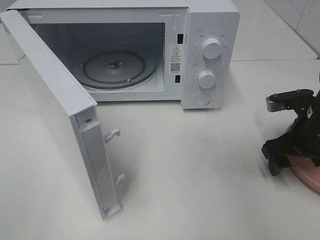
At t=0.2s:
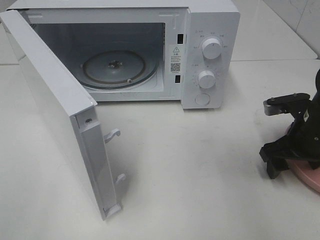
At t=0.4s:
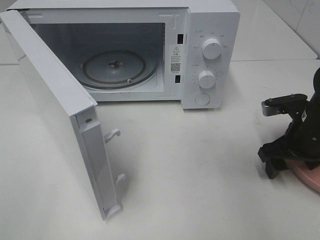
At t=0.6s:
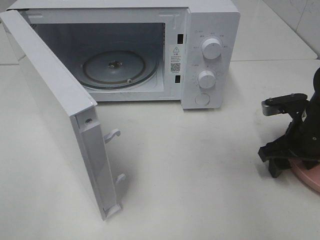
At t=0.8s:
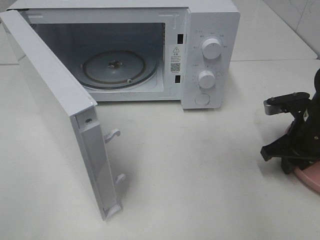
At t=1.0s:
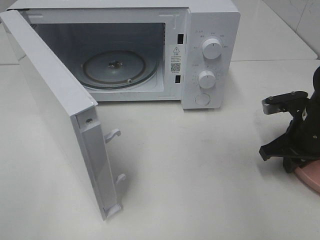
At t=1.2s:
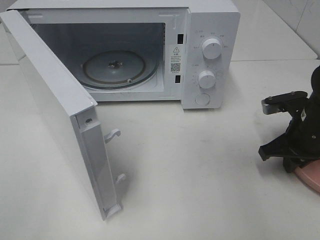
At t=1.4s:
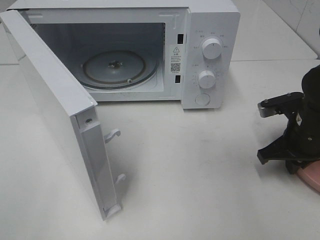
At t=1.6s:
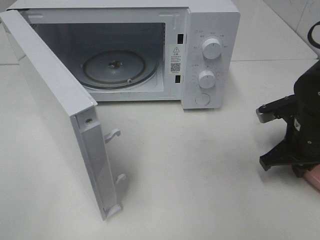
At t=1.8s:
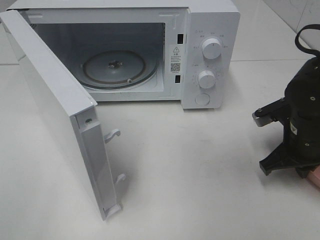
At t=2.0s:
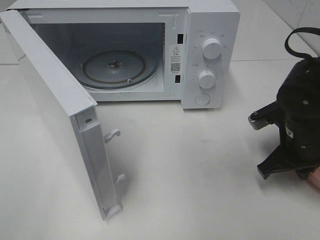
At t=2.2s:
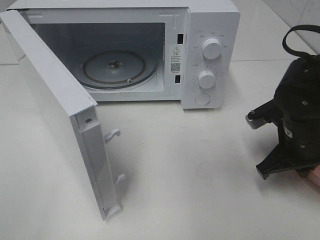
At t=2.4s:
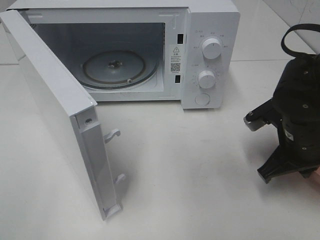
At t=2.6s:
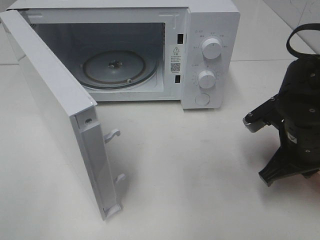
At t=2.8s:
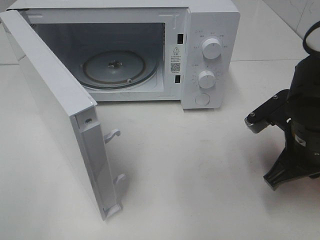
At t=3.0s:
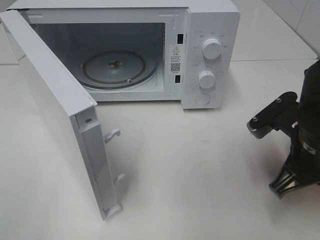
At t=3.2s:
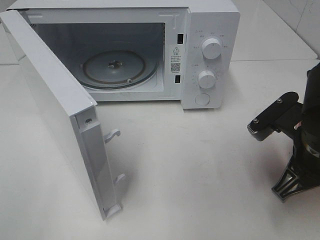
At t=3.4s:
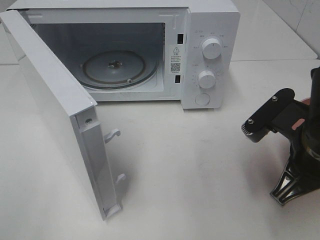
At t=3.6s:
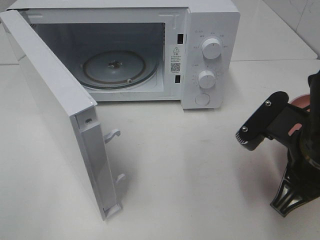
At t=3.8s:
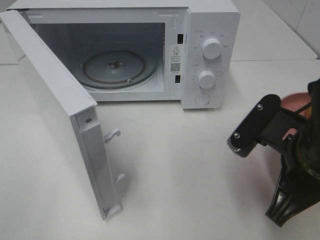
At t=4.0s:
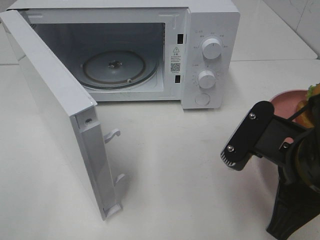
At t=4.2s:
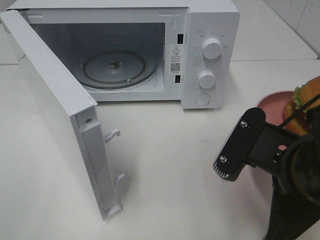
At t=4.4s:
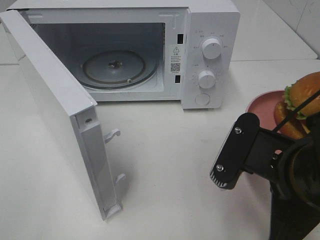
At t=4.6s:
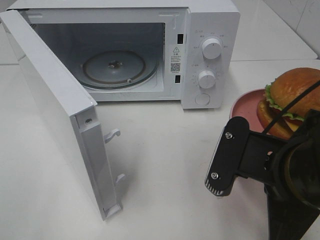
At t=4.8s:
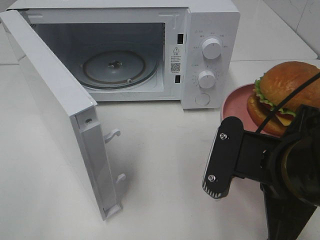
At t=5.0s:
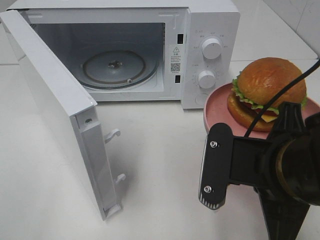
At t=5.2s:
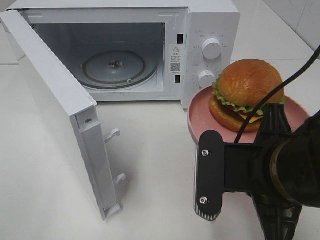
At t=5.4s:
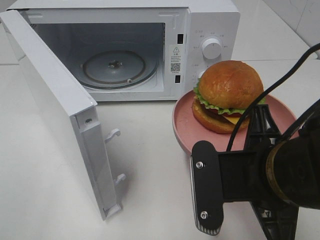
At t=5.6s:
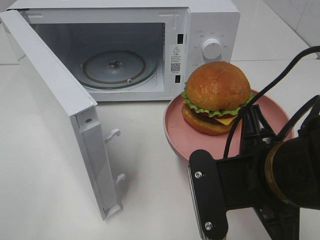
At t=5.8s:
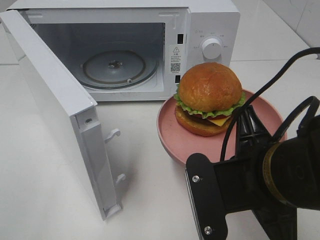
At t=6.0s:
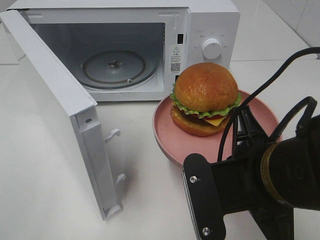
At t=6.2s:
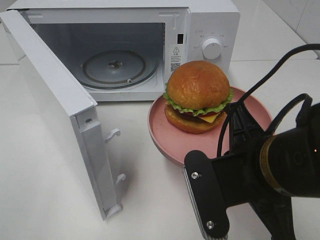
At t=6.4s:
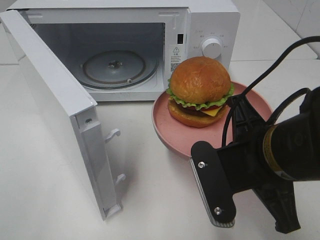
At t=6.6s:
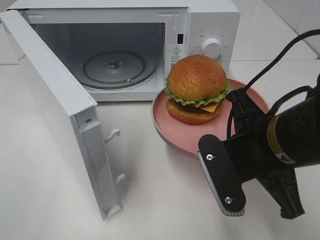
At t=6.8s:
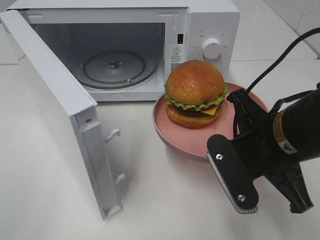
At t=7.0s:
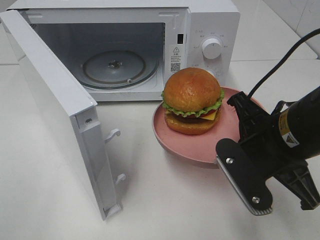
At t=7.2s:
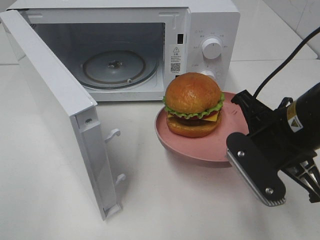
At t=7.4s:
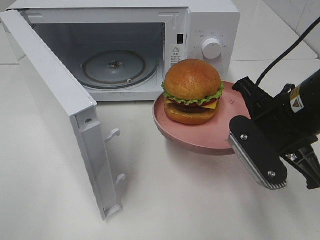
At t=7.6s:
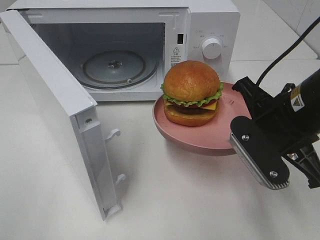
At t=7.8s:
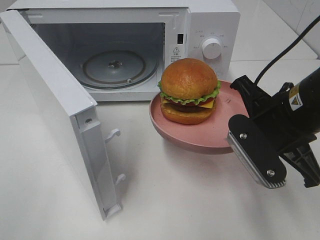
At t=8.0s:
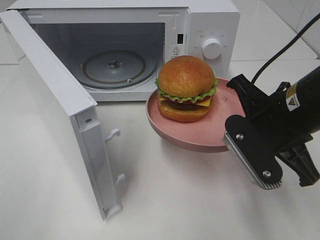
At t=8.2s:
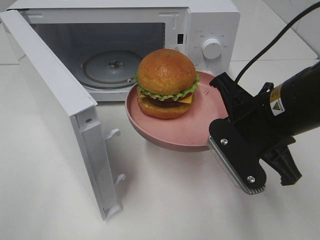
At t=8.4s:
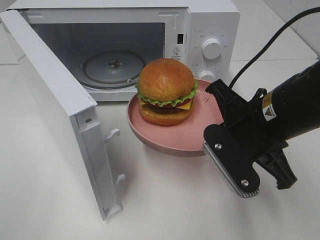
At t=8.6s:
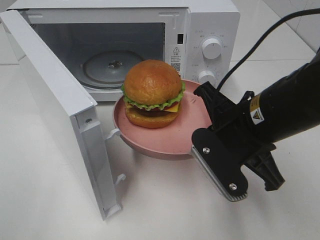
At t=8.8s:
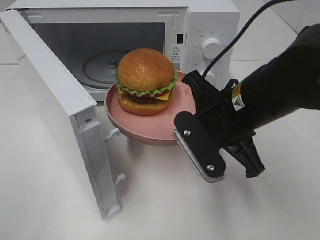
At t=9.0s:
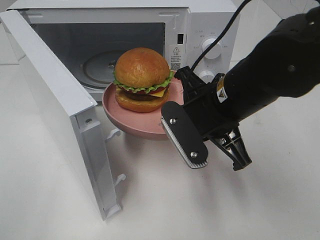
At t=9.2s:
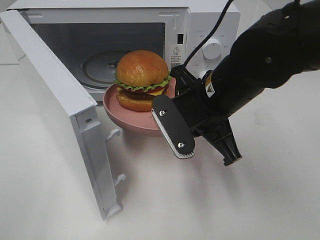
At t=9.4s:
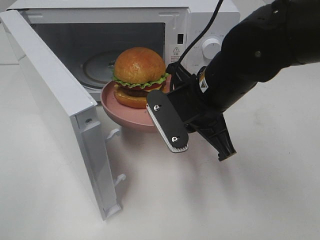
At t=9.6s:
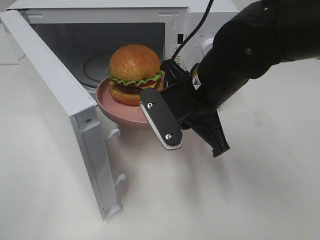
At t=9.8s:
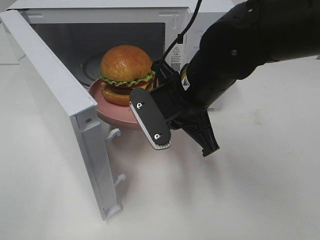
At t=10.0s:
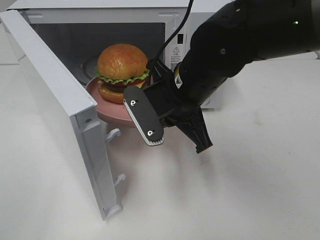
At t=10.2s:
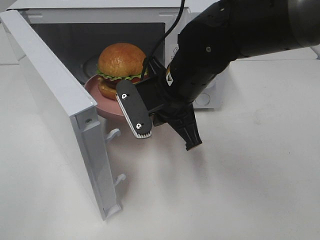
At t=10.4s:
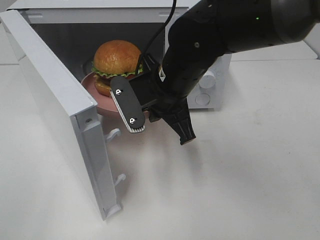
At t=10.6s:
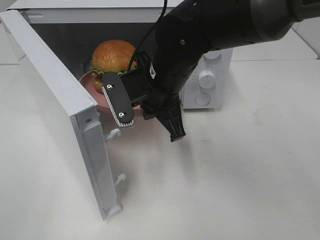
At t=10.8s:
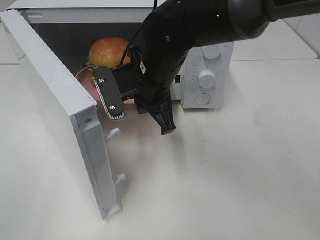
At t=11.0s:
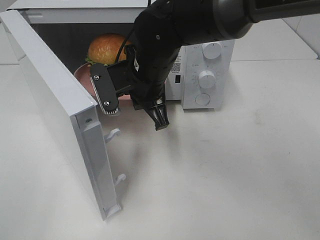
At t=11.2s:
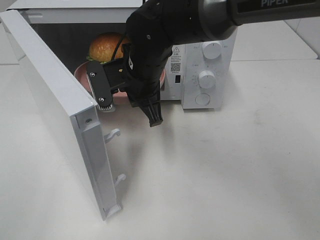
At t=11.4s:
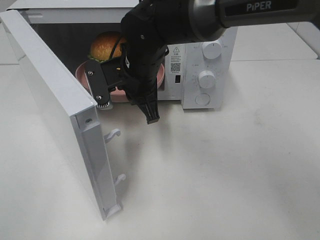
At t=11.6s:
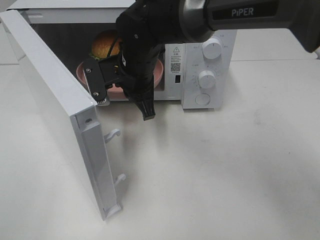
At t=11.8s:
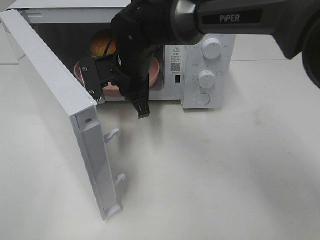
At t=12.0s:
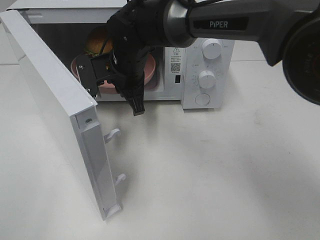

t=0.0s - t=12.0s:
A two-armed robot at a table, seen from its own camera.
Task of the whole recording: Heat the burger.
t=0.0s - t=1.6s: The right gripper closes.
t=1.6s - t=3.0s: The right gripper travels backward by about 5 cm.
t=3.0s - t=4.4s: The right gripper moves backward and to the left, roughly 10 cm.
t=6.0s - t=7.6s: The right gripper is displaced forward and to the right by approximately 10 cm.
t=7.6s - t=9.0s: The right gripper heads to the left, covering about 10 cm.
t=9.0s - t=10.4s: The right gripper is displaced to the left and forward by roughly 10 cm.
t=10.4s - t=12.0s: The right gripper is displaced forward and to the left by some 10 cm.

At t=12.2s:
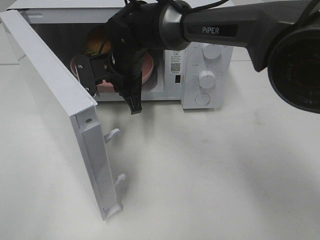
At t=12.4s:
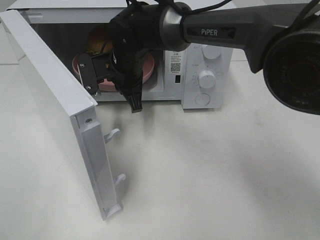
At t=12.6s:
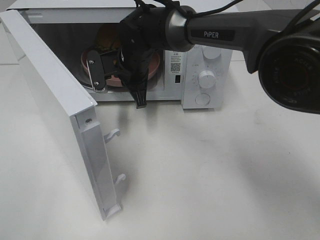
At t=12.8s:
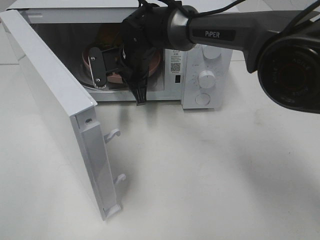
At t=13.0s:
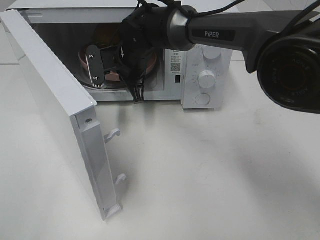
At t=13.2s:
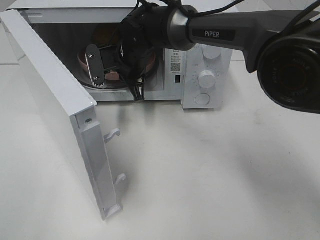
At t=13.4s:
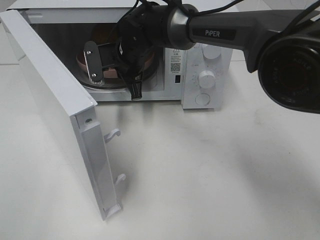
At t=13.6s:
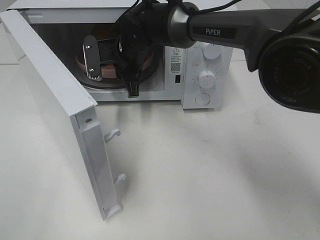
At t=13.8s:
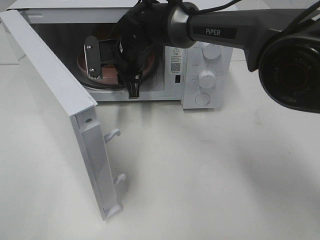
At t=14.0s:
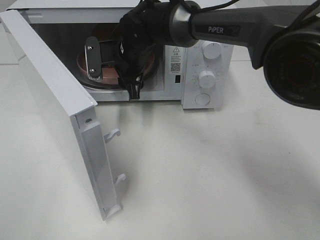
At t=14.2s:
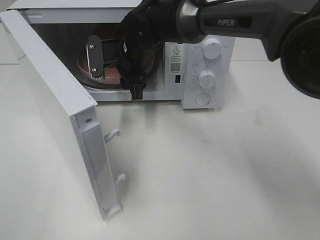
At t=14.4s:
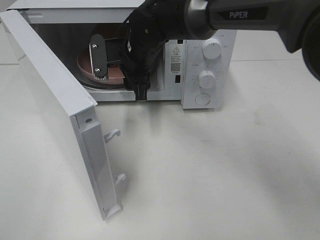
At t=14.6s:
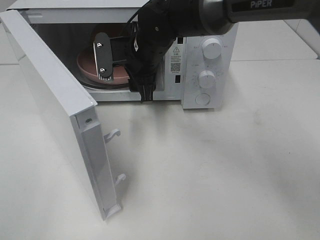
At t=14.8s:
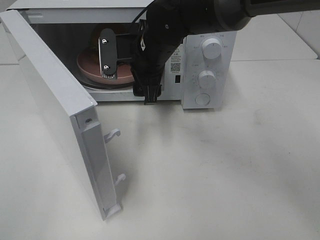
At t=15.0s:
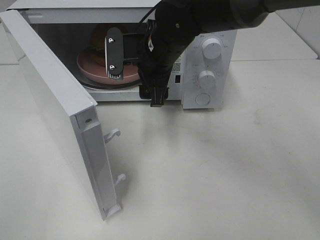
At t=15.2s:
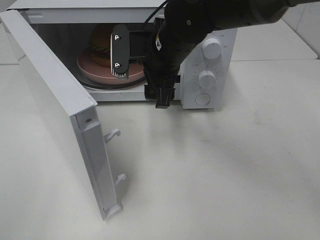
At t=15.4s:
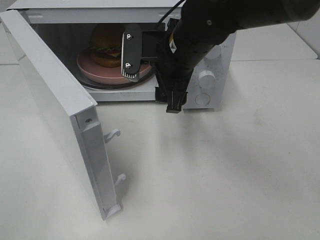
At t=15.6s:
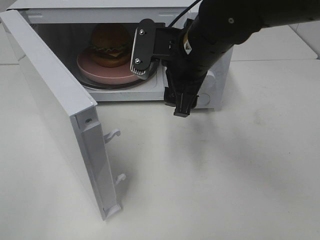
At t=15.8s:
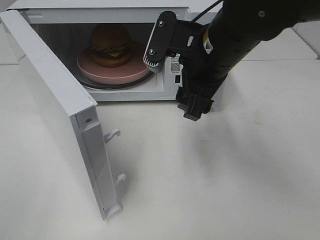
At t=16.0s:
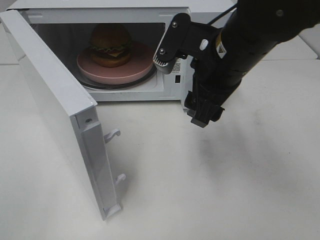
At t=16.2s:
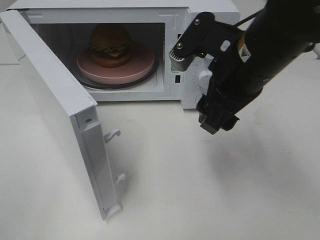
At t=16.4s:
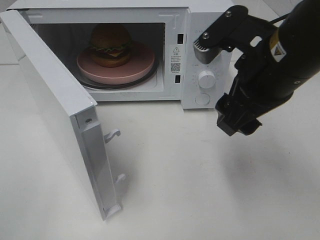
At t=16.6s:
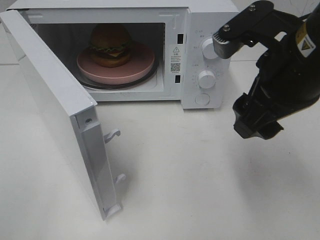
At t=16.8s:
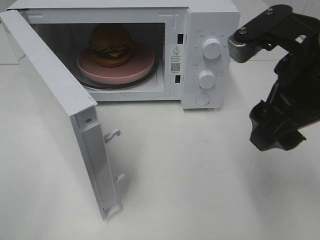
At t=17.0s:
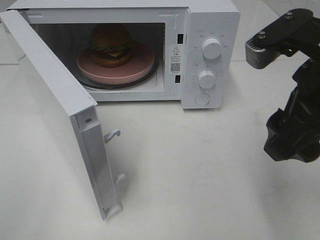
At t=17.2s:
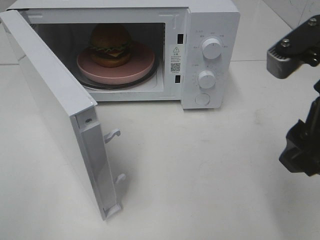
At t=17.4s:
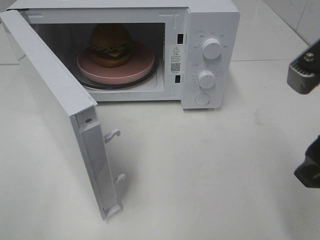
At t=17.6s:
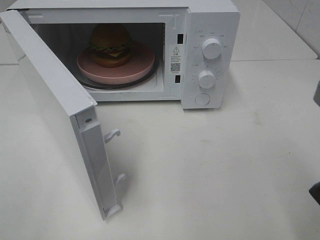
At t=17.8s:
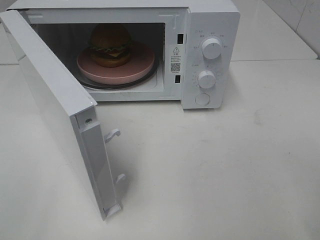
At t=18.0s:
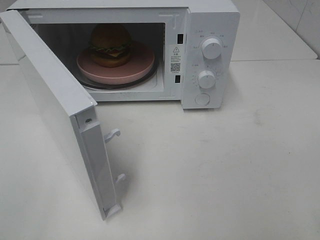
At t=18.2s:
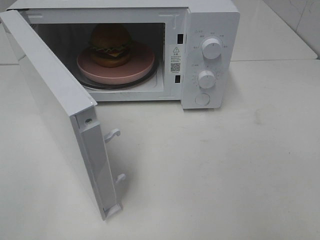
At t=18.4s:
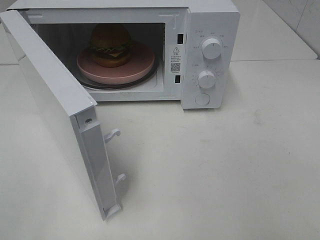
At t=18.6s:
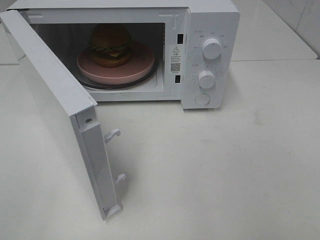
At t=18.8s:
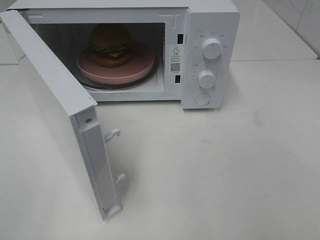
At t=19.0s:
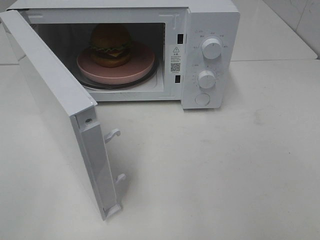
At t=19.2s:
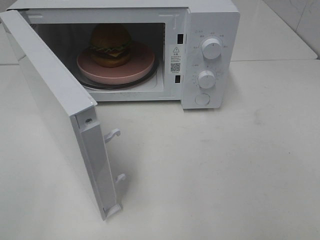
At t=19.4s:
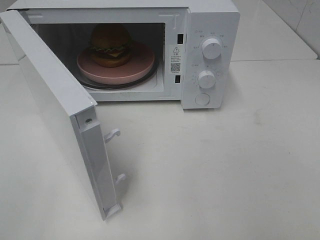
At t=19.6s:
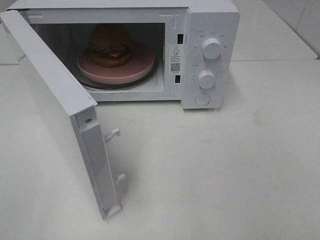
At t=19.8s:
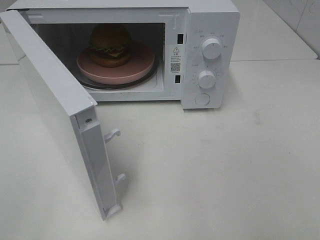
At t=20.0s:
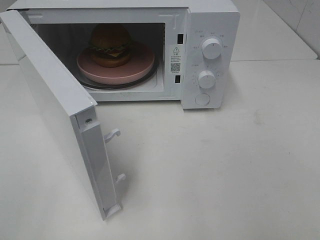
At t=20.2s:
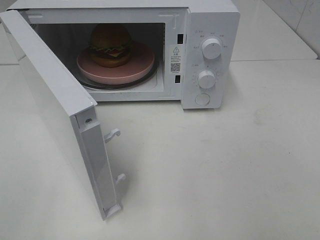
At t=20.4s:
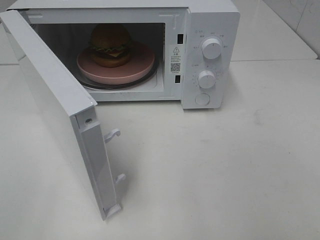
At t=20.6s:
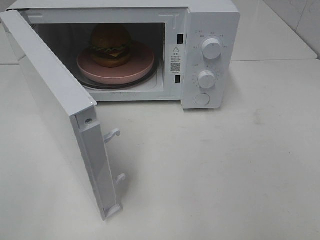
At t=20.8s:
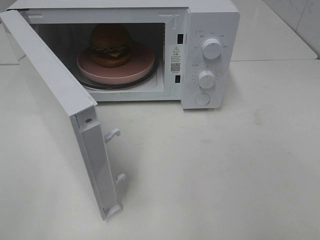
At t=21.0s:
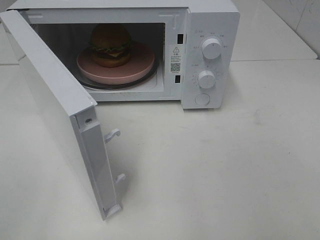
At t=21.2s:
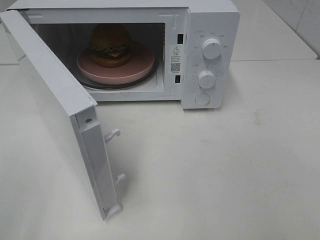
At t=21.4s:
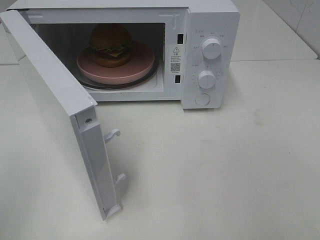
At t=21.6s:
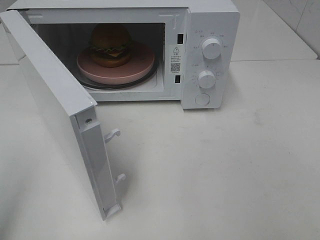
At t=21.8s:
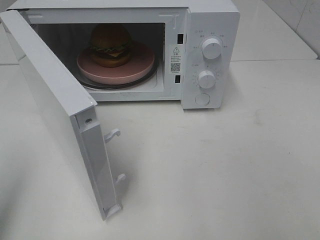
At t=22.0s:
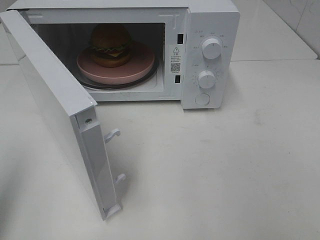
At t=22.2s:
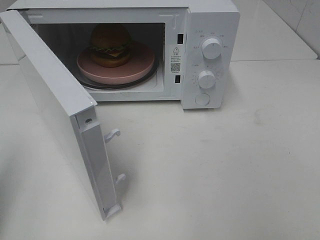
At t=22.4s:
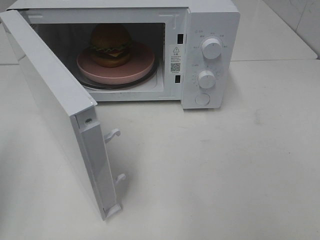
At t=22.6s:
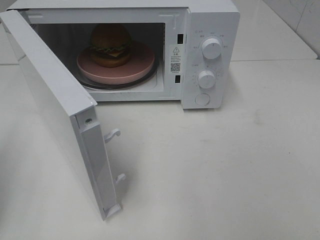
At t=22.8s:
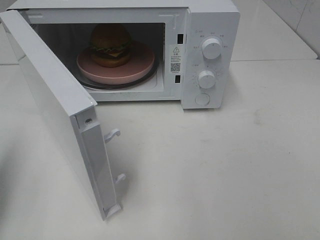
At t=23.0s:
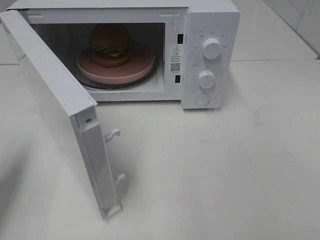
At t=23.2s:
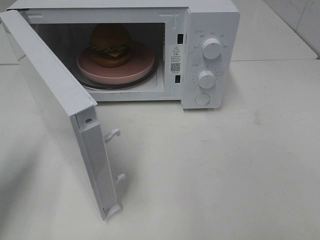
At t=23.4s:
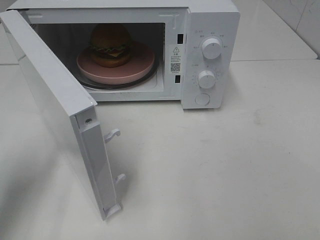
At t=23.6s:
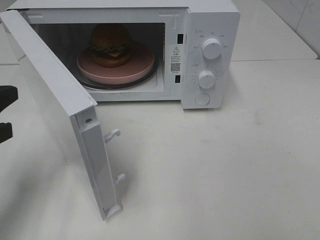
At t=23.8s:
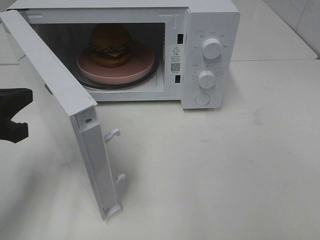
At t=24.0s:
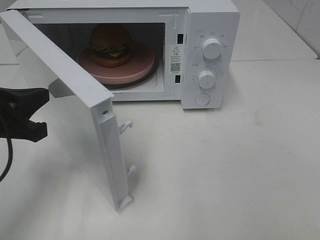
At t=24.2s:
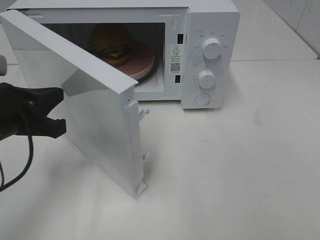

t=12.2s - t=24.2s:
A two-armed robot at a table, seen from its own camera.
Task of the whole recording: Heat the burger.
Step, t=12.2s - t=14.4s: Right hand: place the plate in the microwave.
t=12.2s - t=13.8s: The right gripper opens its fingers.
t=13.8s - t=15.2s: The right gripper is displaced backward and to the right by some 10 cm.
t=15.2s - t=16.6s: The right gripper moves backward, to the right and upward, about 20 cm.
t=16.6s - t=18.2s: The right gripper is displaced backward and to the right by roughly 20 cm.
t=22.6s - t=24.2s: The left gripper is displaced to the right, forward and downward by approximately 15 cm.
